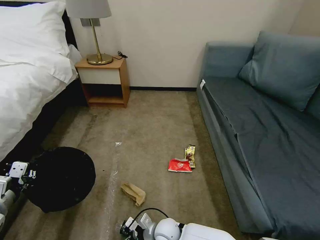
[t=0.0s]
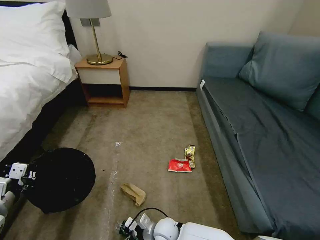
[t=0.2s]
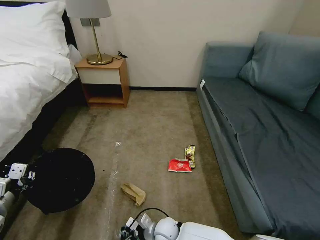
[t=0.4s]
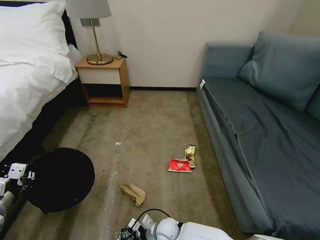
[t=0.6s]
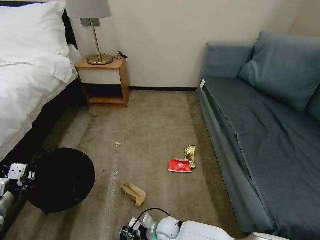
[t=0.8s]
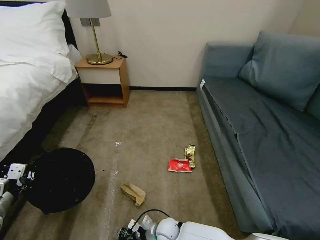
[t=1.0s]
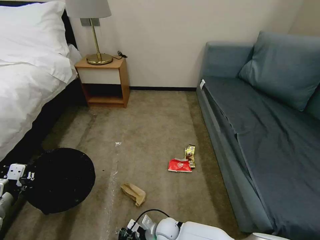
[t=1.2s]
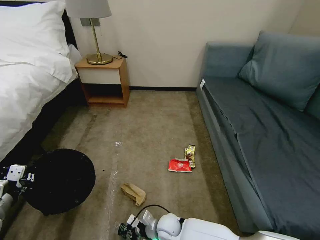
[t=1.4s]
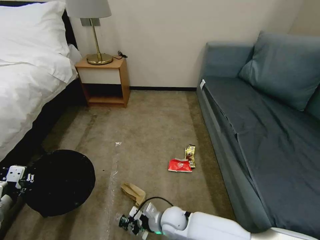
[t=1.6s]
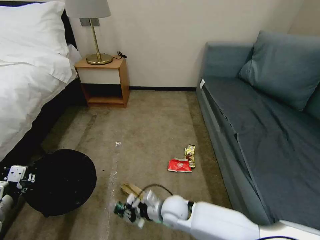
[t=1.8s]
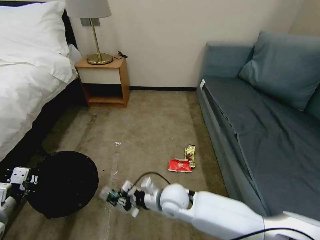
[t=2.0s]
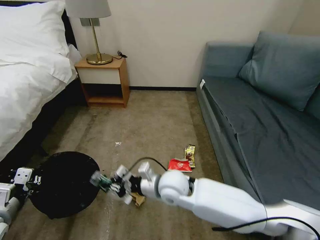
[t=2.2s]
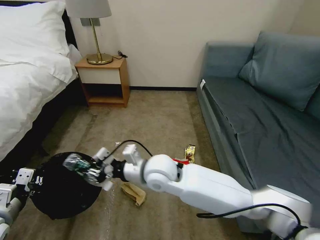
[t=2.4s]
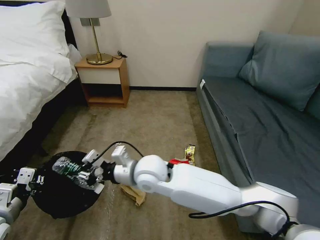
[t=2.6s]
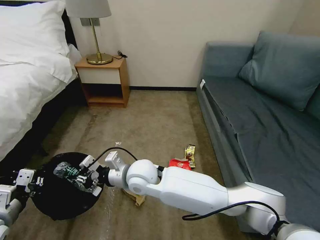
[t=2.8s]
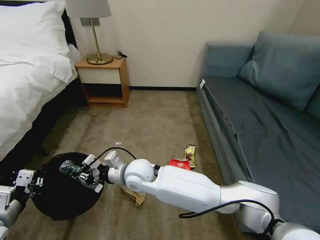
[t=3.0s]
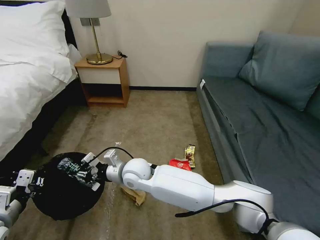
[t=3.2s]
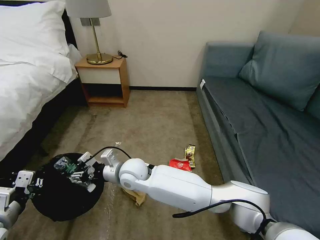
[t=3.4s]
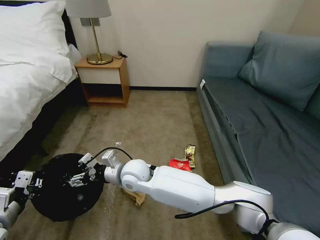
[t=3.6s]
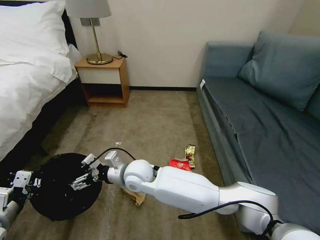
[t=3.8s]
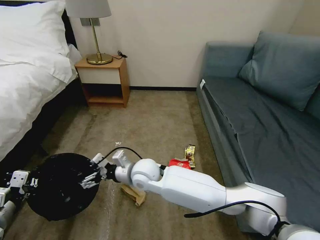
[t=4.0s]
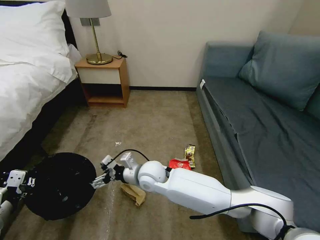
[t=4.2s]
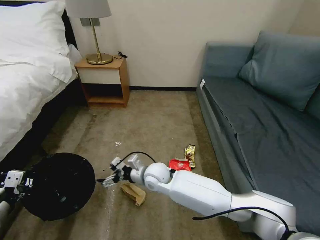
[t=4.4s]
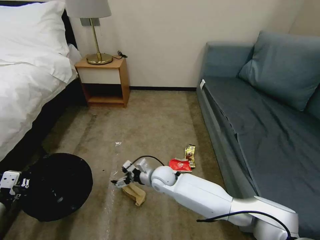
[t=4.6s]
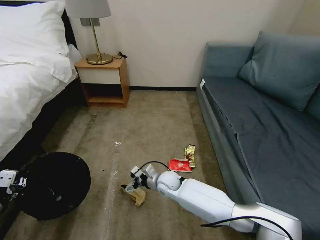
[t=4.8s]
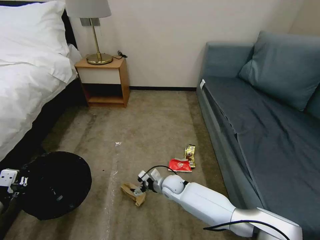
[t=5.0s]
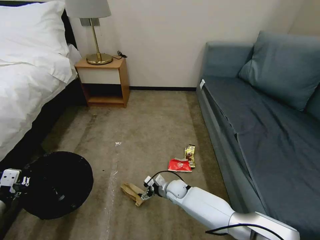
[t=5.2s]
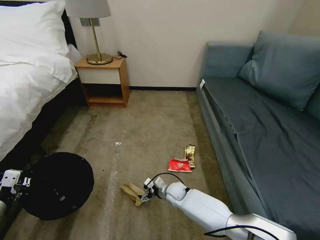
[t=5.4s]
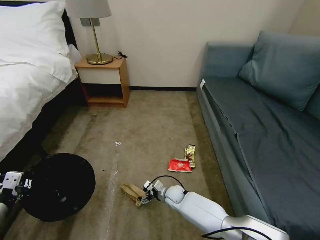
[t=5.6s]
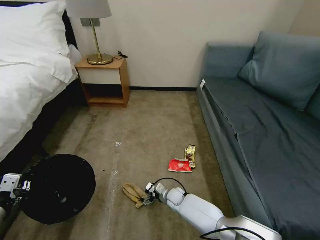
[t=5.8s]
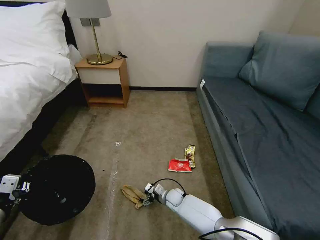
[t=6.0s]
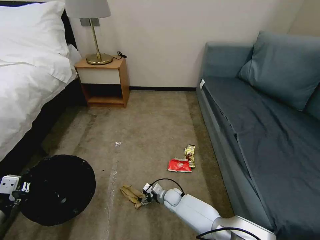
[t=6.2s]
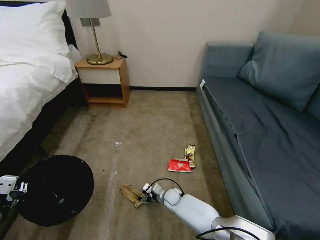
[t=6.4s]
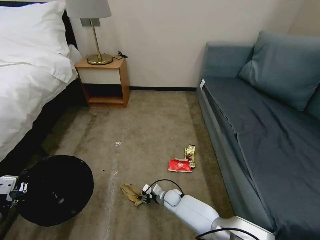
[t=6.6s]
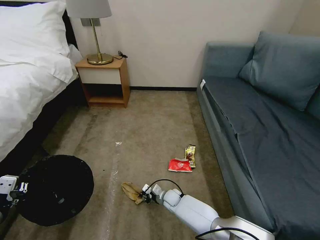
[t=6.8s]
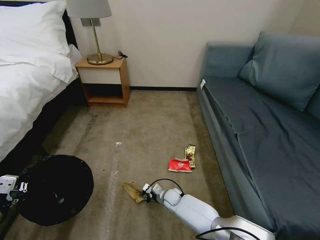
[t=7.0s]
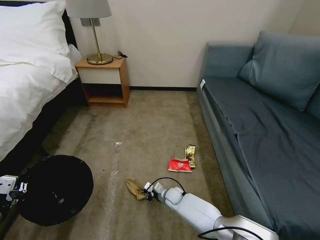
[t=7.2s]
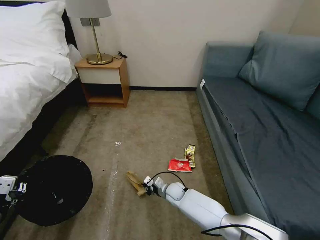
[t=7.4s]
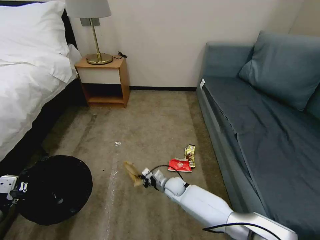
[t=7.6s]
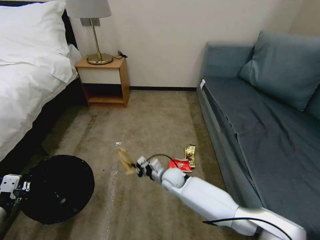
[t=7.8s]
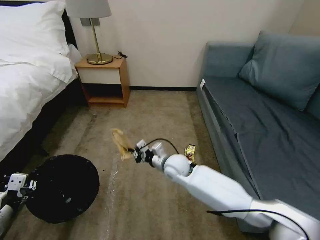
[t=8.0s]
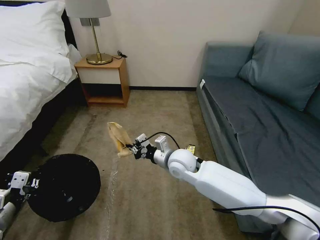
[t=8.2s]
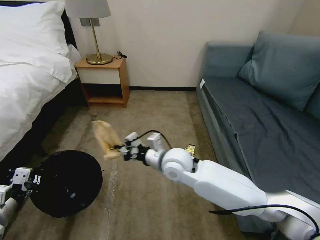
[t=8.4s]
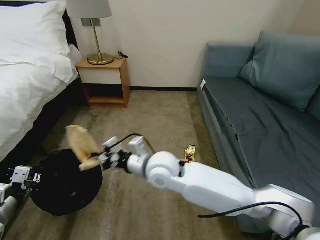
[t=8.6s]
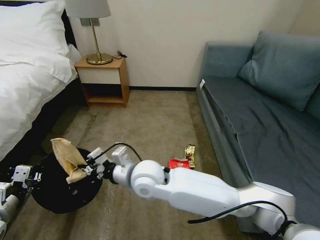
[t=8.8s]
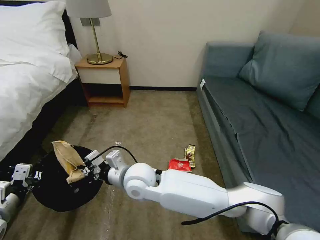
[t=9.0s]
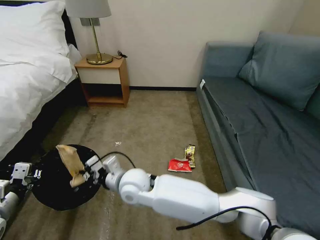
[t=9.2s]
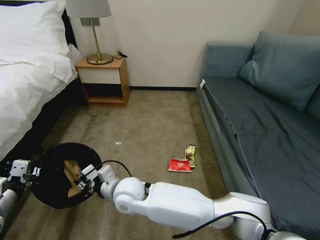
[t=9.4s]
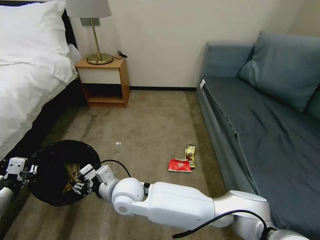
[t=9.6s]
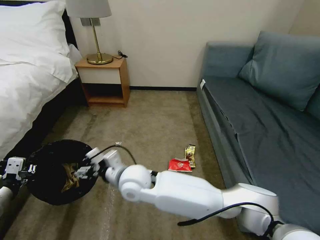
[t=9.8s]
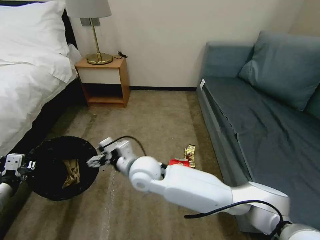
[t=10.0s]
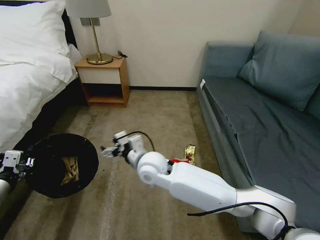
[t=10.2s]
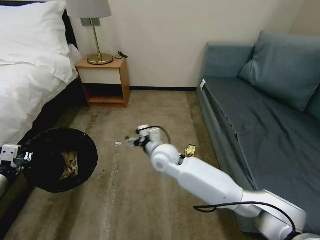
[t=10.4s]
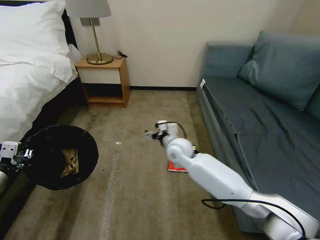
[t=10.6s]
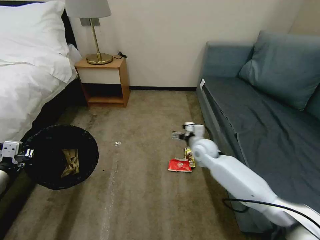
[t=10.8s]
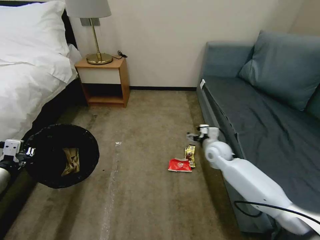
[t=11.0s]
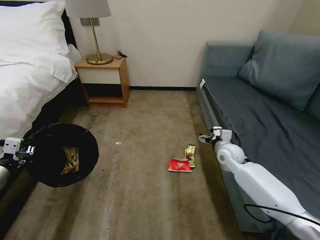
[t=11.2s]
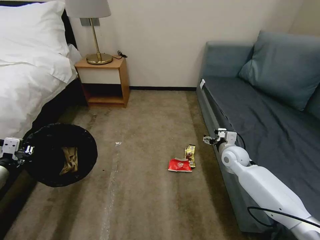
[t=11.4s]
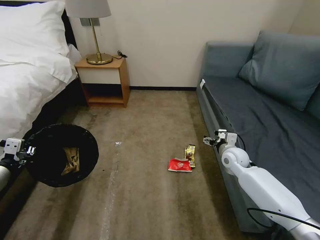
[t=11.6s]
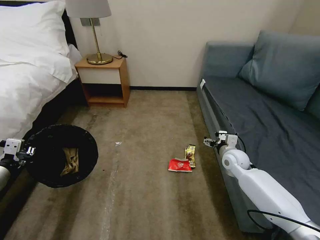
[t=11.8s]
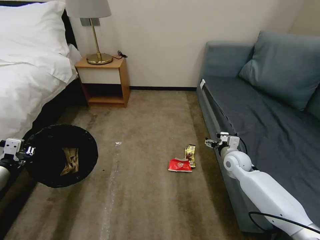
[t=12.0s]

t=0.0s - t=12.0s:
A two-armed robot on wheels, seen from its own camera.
Task of the whole recording: Pick up the trash bin, then pick up the garbage on the floor and place it into the trash bin.
t=0.0s - t=1.6s: The right gripper travels downward and back again, roughly 5 cm each way, and closes.
t=1.6s - t=3.0s: The right gripper shifts approximately 25 cm upward, to the left and forward.
t=3.0s - t=4.4s: The right gripper is displaced downward and to the right by some 10 cm, and opens up.
t=4.4s - t=6.0s: The right gripper moves downward, some 25 cm.
t=6.0s - t=7.6s: The right gripper shifts about 10 cm upward, and closes up.
t=7.6s - t=9.0s: The right gripper heads upward and to the left, covering approximately 30 cm.
t=9.0s - t=10.4s: The left gripper shifts by approximately 5 cm, while the right gripper travels forward and to the right by about 10 cm, and opens up.
t=10.4s - t=12.0s: The right gripper travels to the right by about 30 cm.

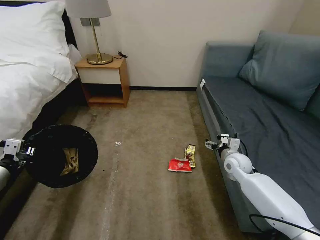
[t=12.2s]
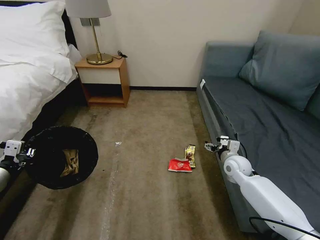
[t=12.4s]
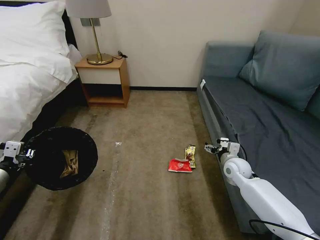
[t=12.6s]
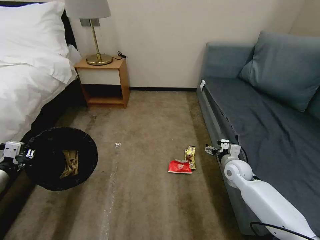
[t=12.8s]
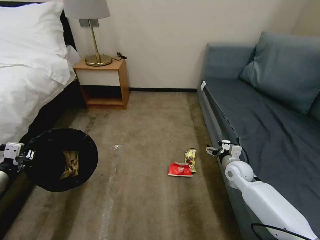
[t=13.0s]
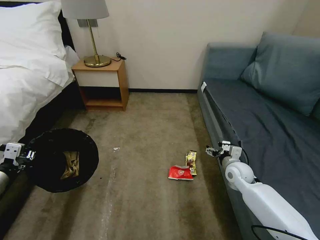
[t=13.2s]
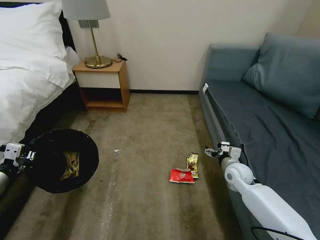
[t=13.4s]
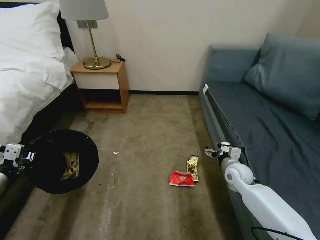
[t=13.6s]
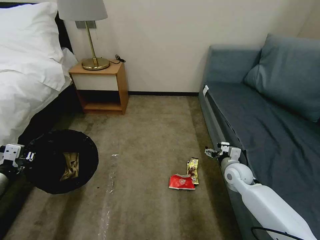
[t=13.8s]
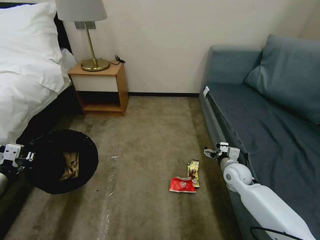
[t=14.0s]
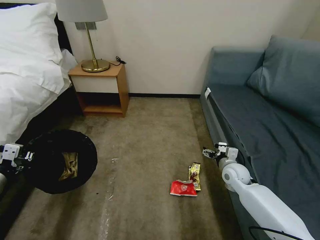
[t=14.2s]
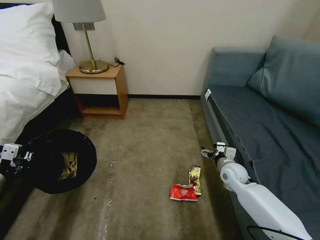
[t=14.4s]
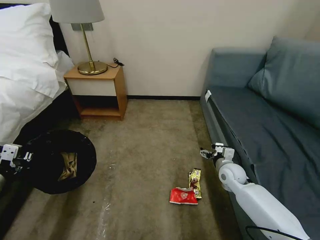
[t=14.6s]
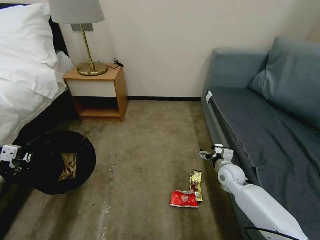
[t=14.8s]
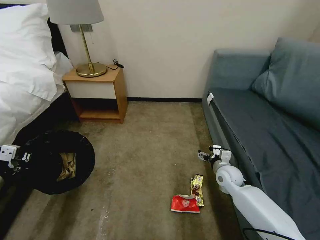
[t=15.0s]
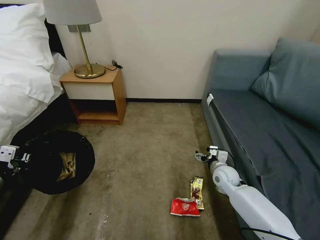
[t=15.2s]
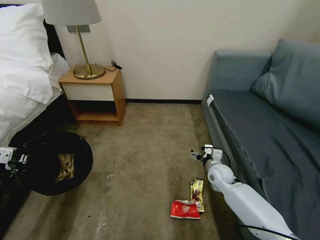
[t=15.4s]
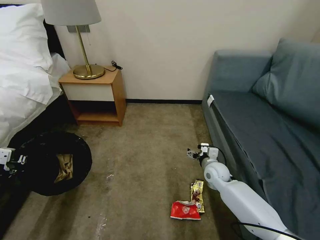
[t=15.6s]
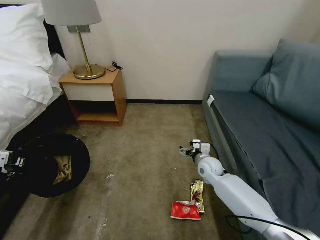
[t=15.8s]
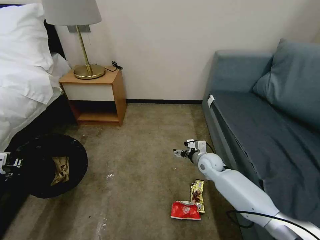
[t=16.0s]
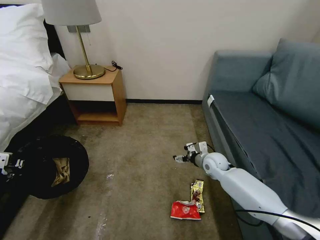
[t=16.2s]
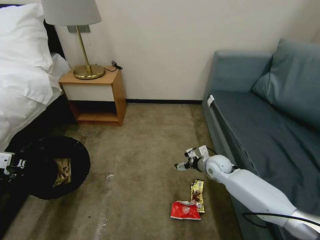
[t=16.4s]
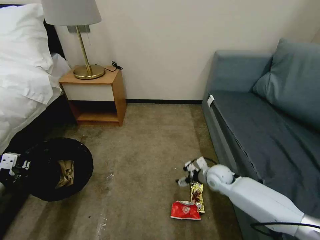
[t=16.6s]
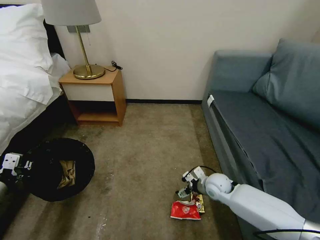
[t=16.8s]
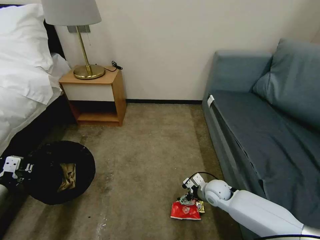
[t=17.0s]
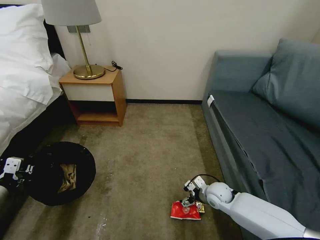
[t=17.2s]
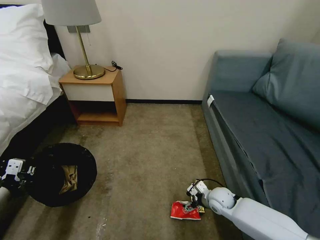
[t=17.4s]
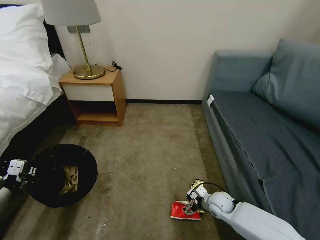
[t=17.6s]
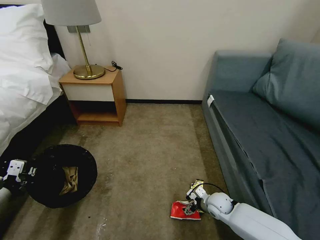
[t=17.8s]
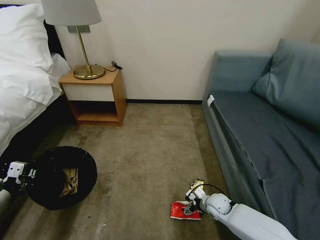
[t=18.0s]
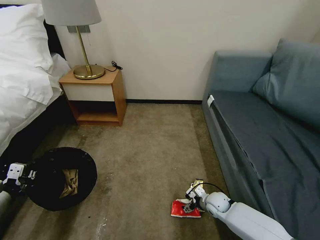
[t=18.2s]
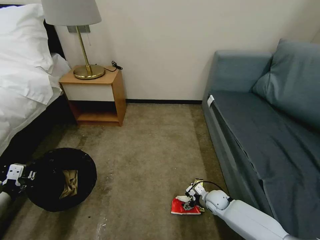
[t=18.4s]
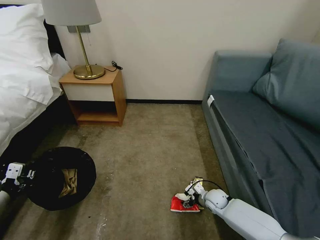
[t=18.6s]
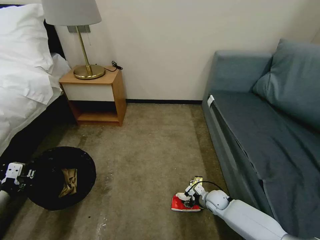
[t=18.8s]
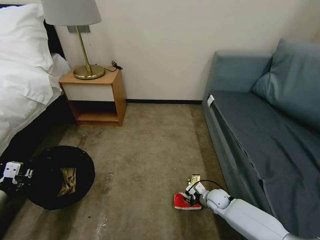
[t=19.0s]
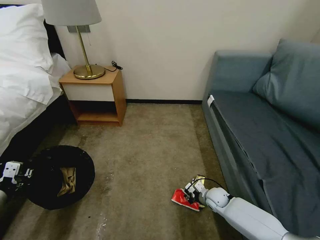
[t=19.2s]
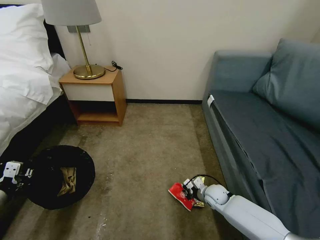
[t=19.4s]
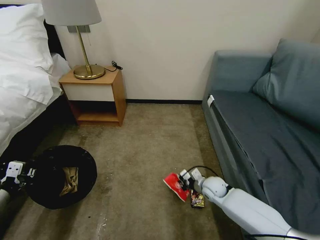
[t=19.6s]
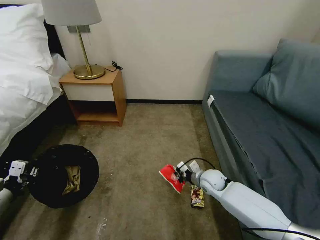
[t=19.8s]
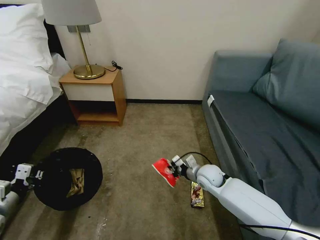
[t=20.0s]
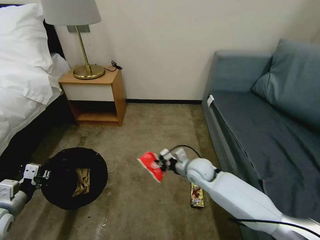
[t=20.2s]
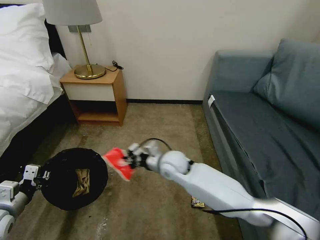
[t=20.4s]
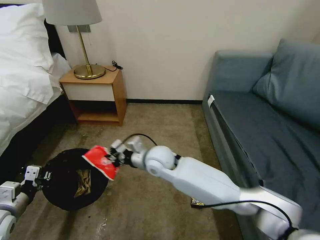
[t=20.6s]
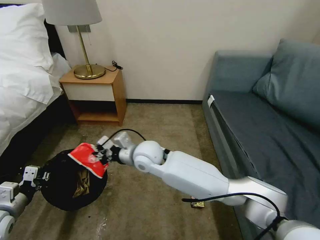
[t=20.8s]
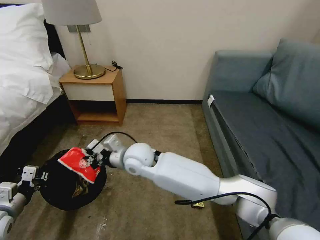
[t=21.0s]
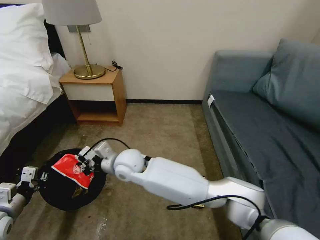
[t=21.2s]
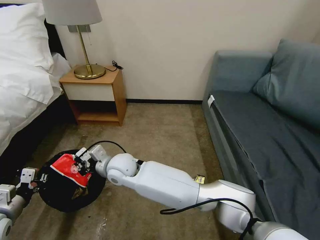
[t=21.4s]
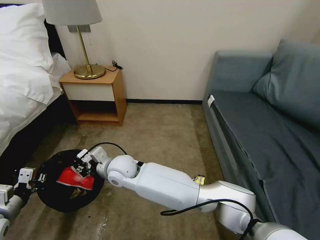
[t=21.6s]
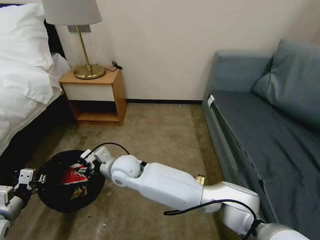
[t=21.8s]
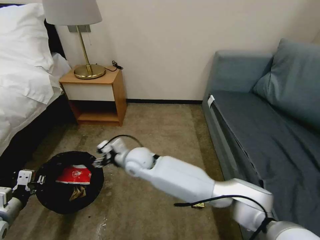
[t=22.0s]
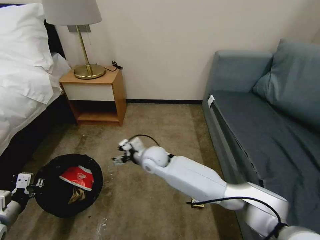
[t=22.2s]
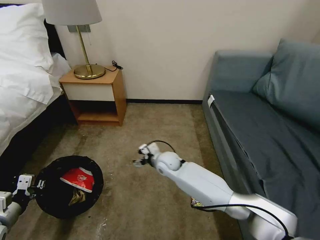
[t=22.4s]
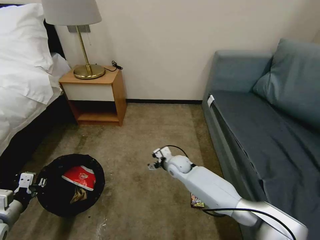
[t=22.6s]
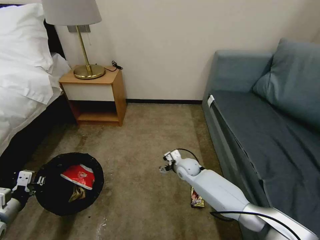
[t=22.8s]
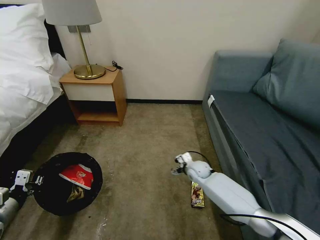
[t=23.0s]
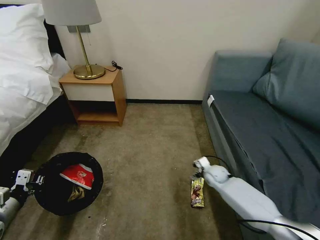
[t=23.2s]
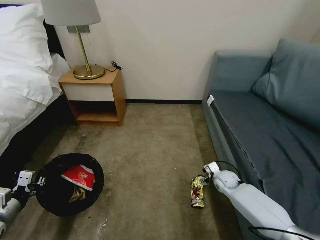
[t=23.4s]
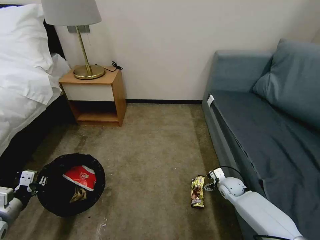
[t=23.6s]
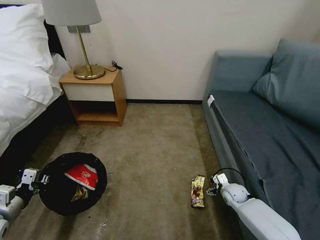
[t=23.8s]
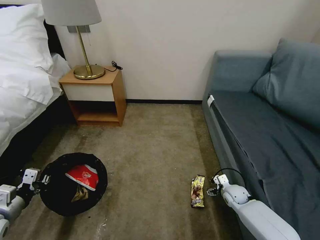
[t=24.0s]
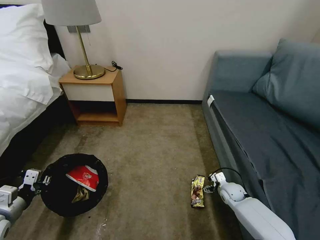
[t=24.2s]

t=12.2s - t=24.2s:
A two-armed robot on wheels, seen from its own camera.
Task of the whole recording: Pick up the trash bin, then pick up the garbage on the floor and place it into the trash bin.
t=12.2s - t=13.8s: The grippers make only small movements.
t=16.6s - t=18.2s: The right gripper shifts some 15 cm downward and backward.
t=18.2s - t=19.8s: The right gripper moves upward and forward, approximately 10 cm, and closes its fingers.
t=19.8s - t=21.2s: The right gripper goes approximately 35 cm to the left and upward.
t=21.2s - t=22.6s: The right gripper heads to the right, downward and forward, covering approximately 25 cm, and opens up.
t=22.6s - t=24.2s: The right gripper is displaced to the right and downward by about 25 cm.
